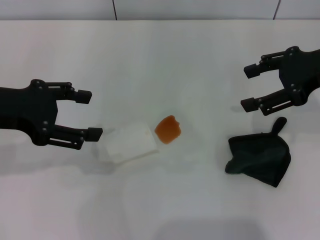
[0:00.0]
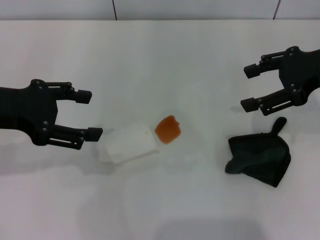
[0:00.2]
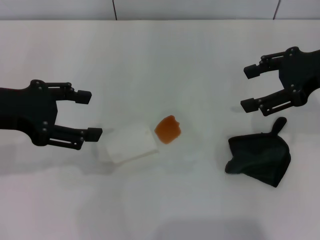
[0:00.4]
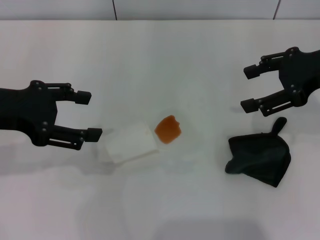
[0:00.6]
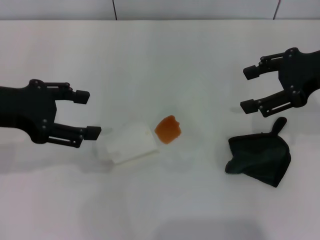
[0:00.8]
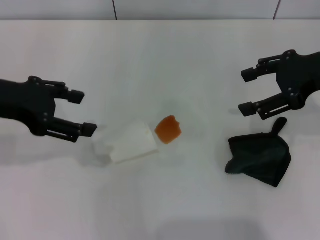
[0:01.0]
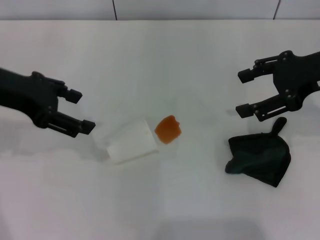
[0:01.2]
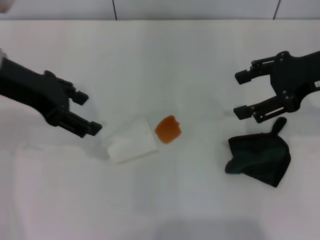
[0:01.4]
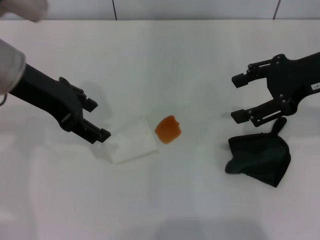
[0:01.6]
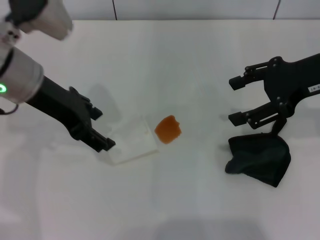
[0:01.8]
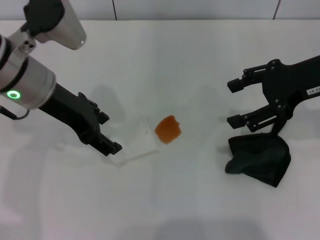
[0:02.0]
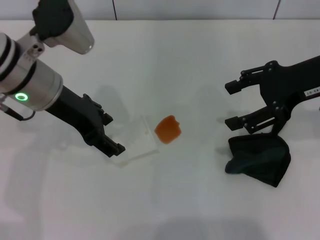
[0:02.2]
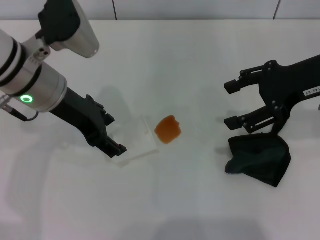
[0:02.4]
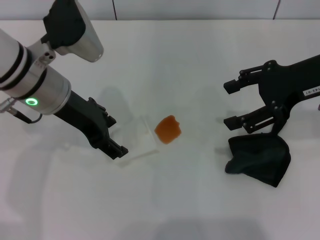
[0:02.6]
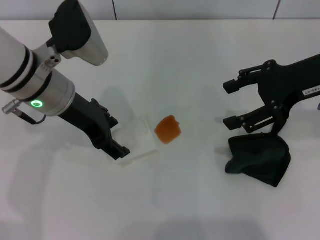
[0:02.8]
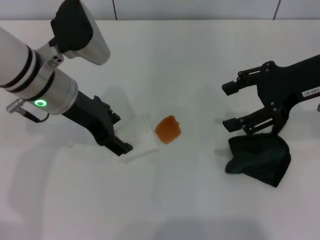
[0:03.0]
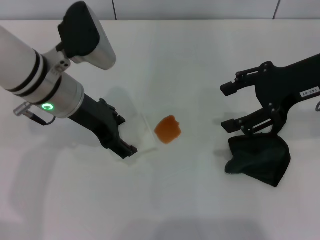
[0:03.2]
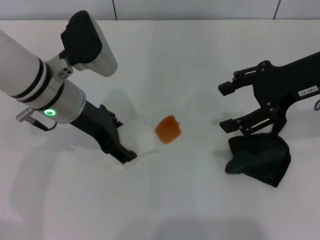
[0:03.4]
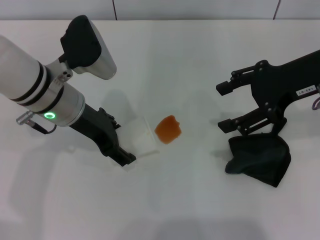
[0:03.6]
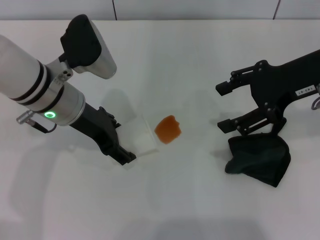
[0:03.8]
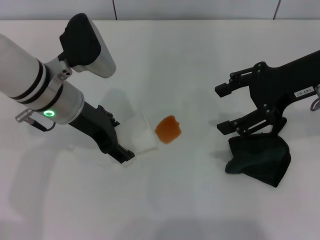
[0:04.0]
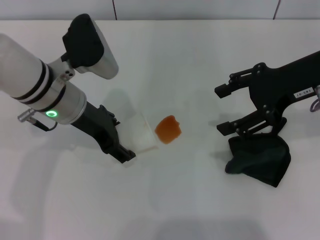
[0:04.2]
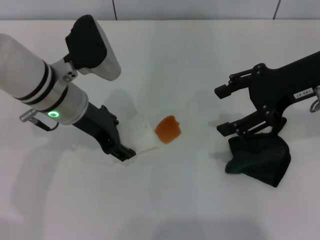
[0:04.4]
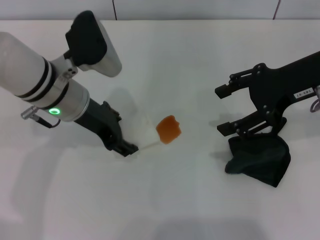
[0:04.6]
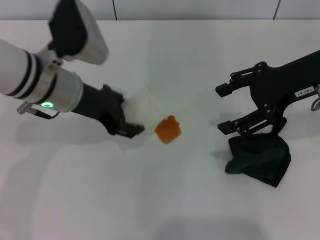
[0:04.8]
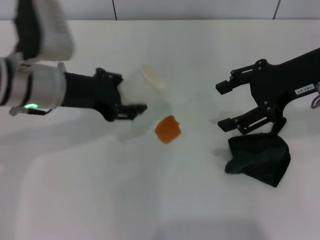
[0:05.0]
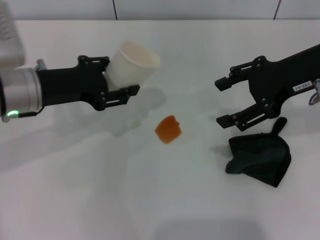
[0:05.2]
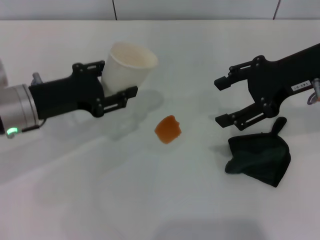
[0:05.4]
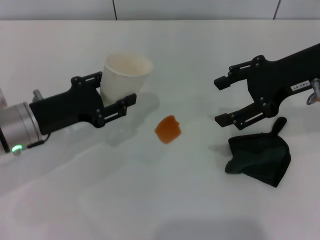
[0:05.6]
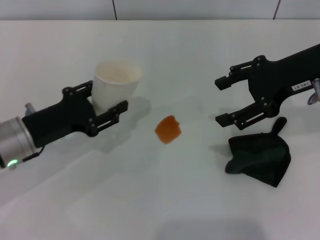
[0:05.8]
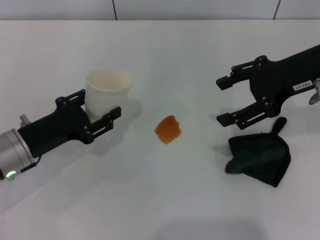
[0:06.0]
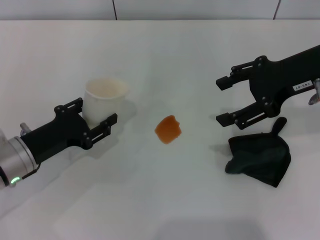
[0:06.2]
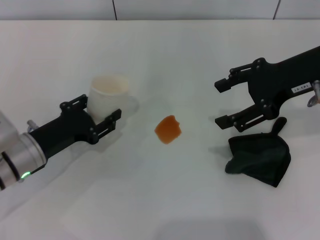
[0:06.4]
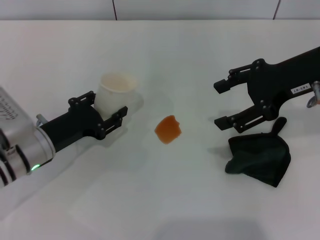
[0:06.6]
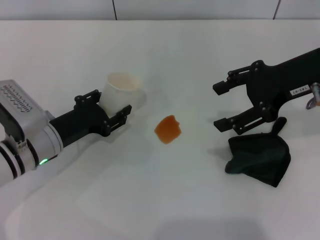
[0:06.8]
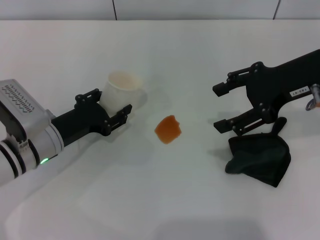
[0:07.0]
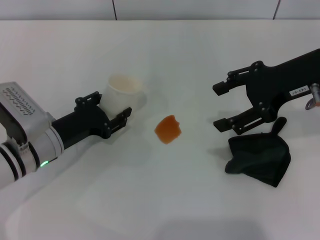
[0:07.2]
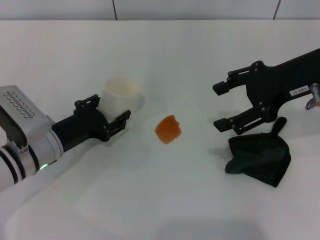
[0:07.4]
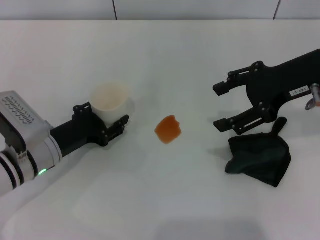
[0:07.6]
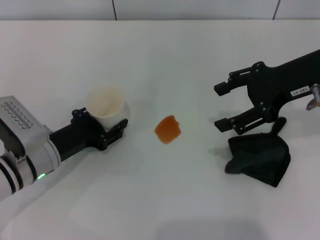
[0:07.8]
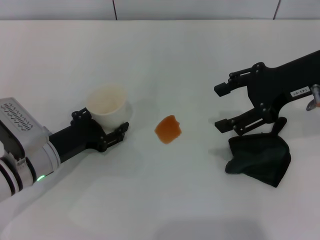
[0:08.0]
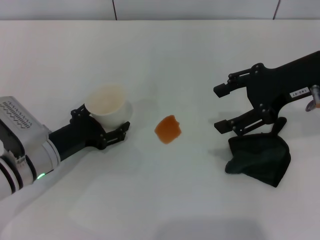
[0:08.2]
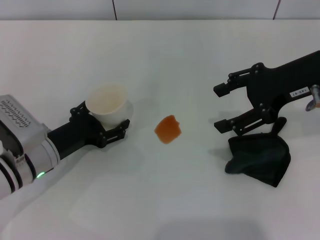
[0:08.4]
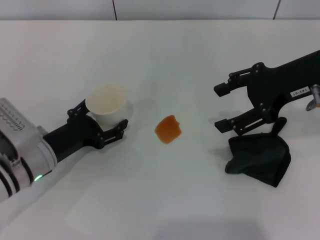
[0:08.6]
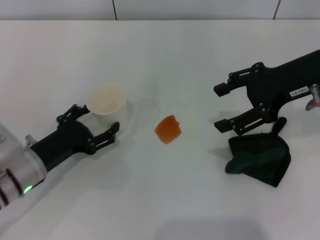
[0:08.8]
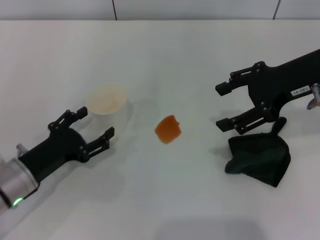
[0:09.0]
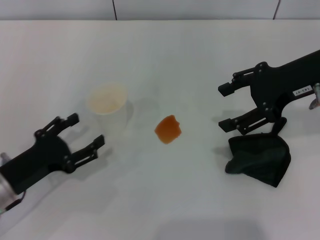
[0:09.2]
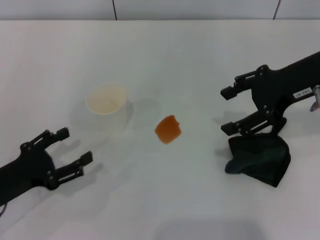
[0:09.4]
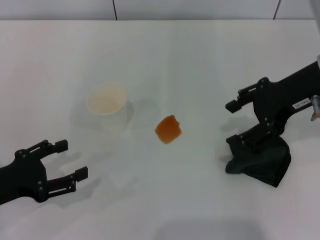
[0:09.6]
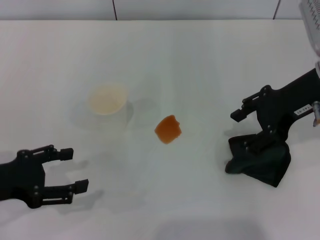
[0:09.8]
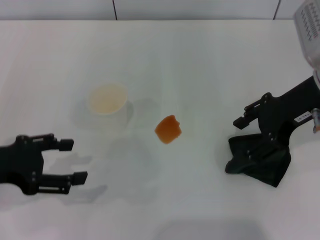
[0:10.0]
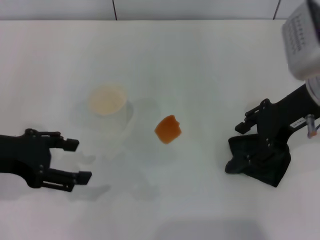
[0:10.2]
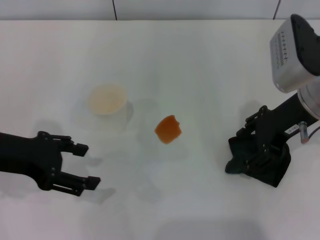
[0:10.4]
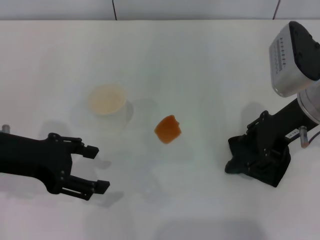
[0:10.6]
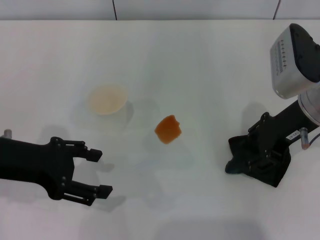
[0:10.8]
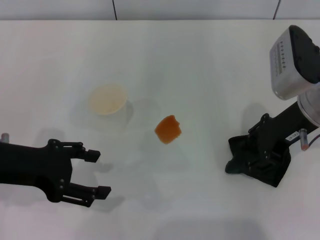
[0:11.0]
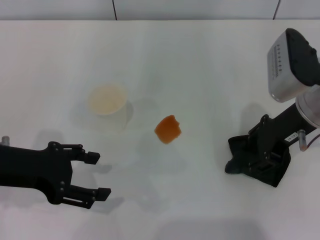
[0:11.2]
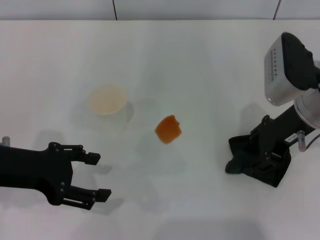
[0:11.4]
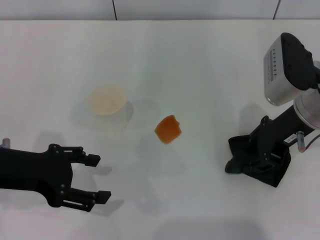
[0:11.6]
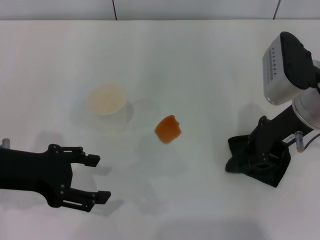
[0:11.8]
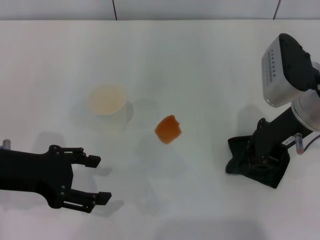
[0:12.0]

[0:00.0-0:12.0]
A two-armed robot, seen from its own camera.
Step, 0:00.0 to 0:04.2: Grasp the paper cup with the left gripper.
Step, 0:04.4 to 0:09.0: Stand the paper cup upright with the left gripper.
0:00.0 to 0:01.6: The left gripper heads to the right and forward, covering roughly 10 cm.
0:01.6 to 0:03.0: The left gripper moves downward, about 5 cm.
0:03.0 to 0:04.4: The grippers make only small movements.
0:04.4 to 0:06.0: The left gripper goes some 15 cm to the left, downward and backward, and closes up.
0:06.0 to 0:07.6: The left gripper moves roughly 5 cm.
0:07.6 to 0:09.0: The left gripper moves approximately 5 cm, and opens its fingers.
0:09.0 to 0:10.4: The left gripper heads upward, covering about 15 cm.
0:10.4 to 0:12.0: The right gripper closes up.

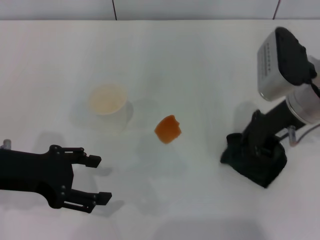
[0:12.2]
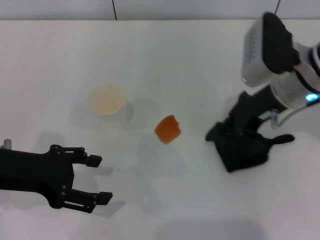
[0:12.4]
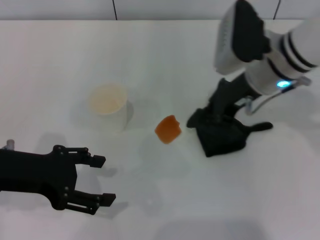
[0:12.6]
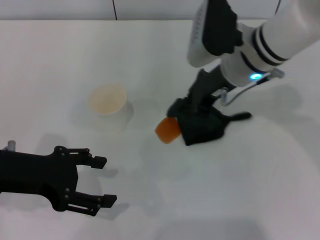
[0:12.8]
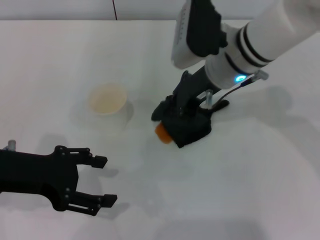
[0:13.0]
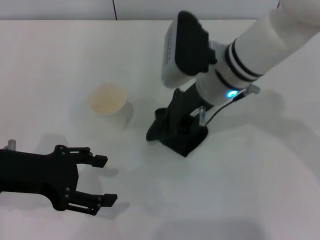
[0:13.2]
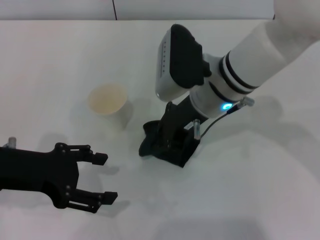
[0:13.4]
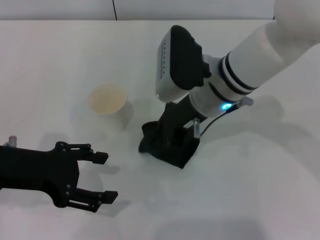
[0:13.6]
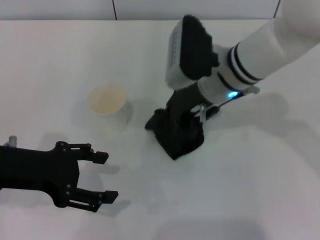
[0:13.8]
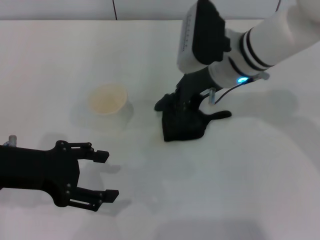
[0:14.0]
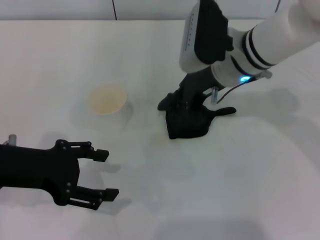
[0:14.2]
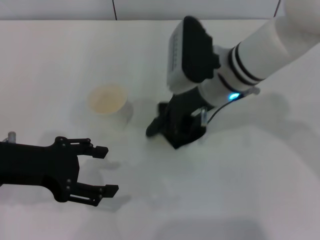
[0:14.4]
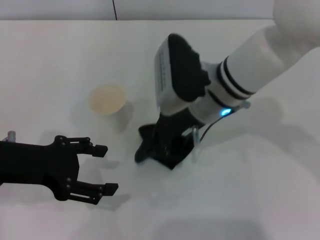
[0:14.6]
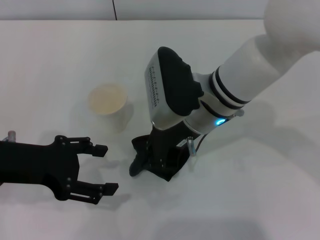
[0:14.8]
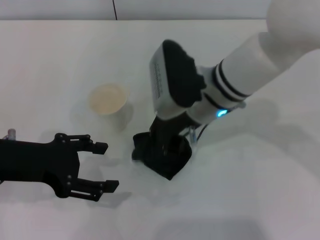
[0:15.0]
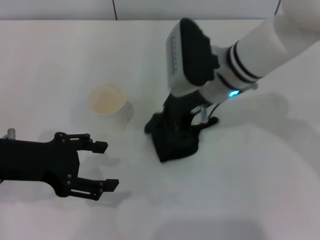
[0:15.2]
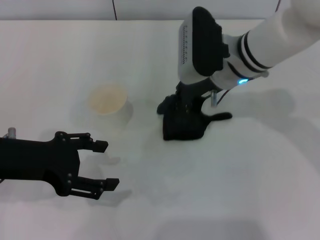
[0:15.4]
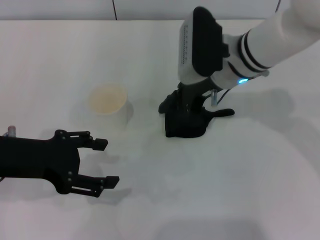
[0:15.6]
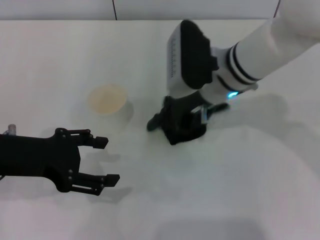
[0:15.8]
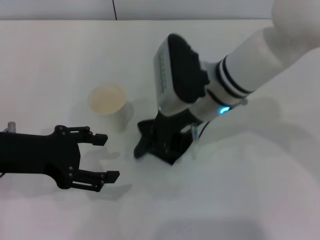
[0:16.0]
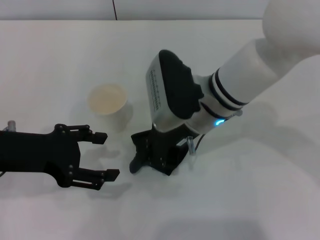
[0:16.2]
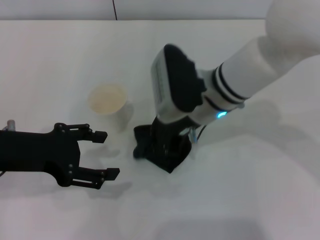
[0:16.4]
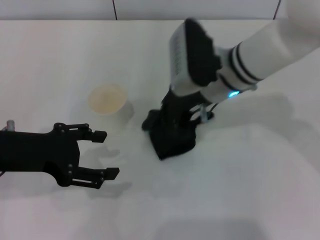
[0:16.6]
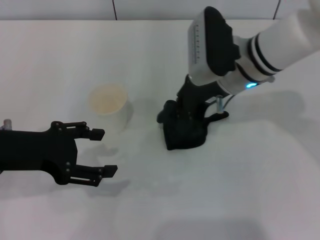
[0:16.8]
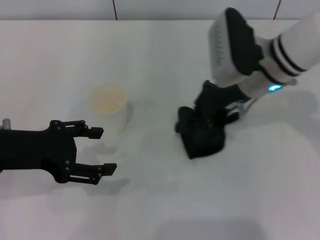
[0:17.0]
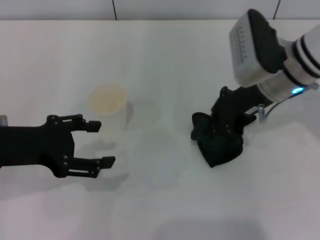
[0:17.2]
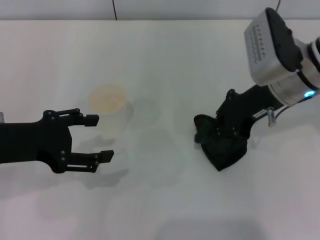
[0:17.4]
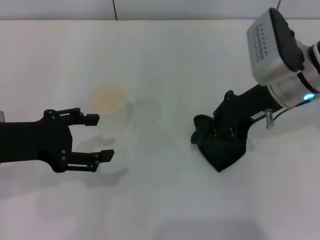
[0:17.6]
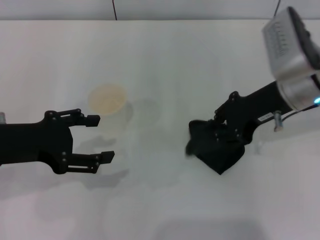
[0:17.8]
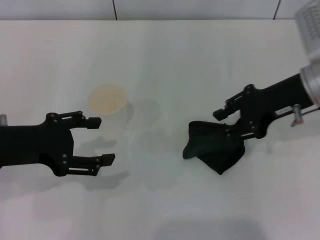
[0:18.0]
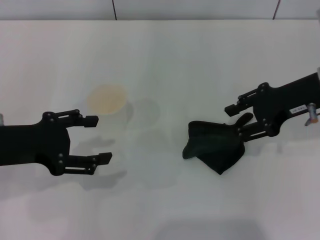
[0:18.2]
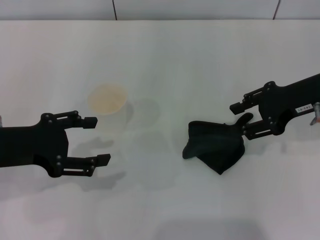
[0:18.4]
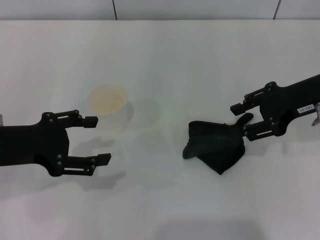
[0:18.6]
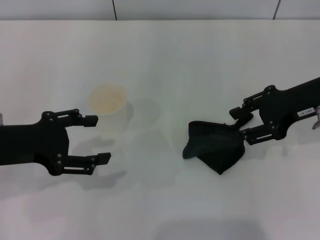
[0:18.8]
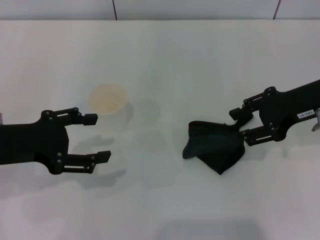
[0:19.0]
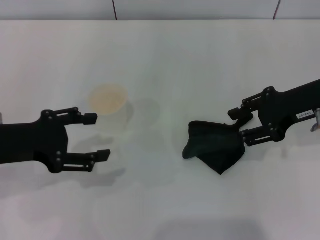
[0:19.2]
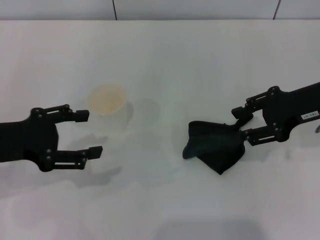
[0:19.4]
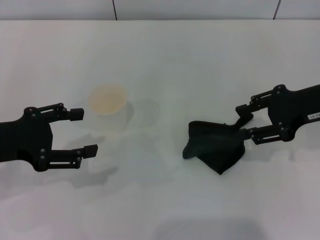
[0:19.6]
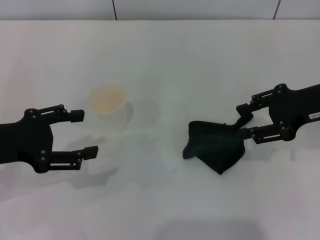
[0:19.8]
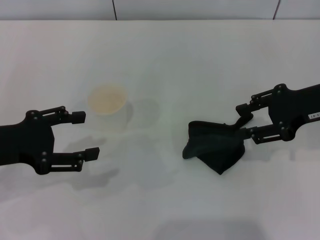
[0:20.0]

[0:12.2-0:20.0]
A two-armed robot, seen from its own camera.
Step, 0:12.2 to 0:16.8: Wipe the stains off the table with the right gripper.
Step, 0:17.0 to 0:18.8: Place the rag on the table with the right gripper.
0:12.2 to 0:13.8: The right gripper shifts roughly 10 cm to the left.
0:13.8 to 0:15.4: The grippers stay close to where they were, moving slightly.
0:16.8 to 0:18.4: The right gripper travels to the right by approximately 15 cm, and opens its fingers.
0:18.4 to 0:20.0: The grippers stay close to where they were, moving slightly.

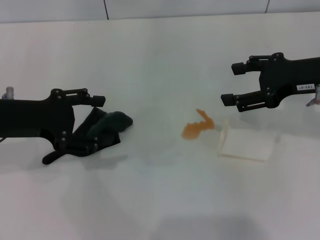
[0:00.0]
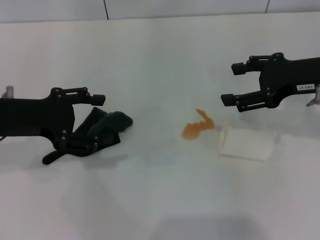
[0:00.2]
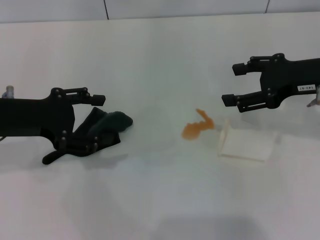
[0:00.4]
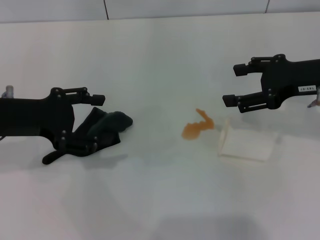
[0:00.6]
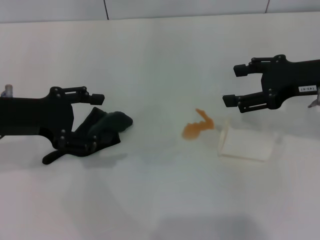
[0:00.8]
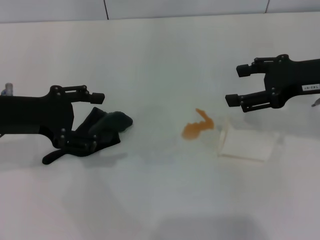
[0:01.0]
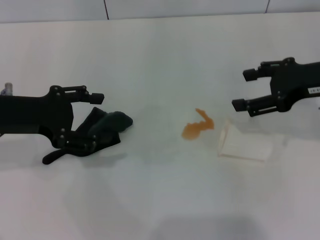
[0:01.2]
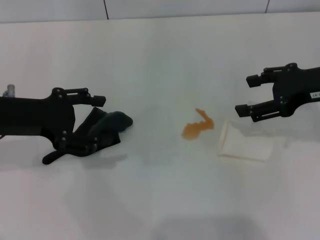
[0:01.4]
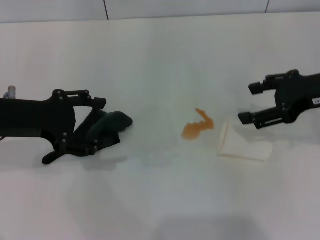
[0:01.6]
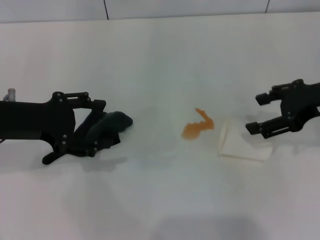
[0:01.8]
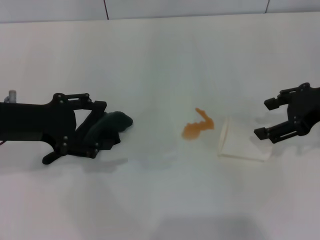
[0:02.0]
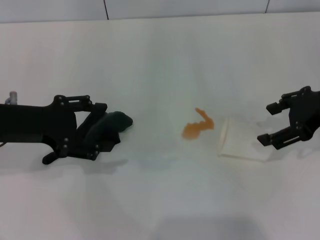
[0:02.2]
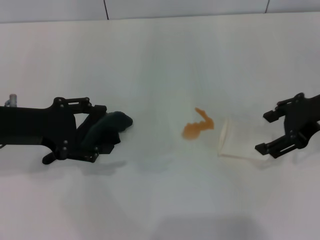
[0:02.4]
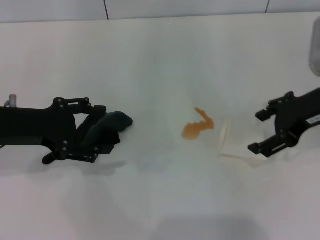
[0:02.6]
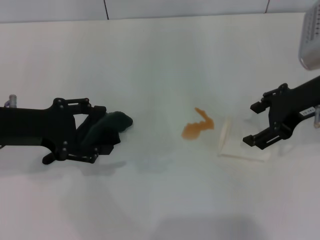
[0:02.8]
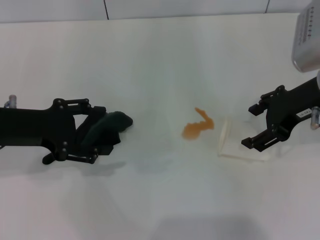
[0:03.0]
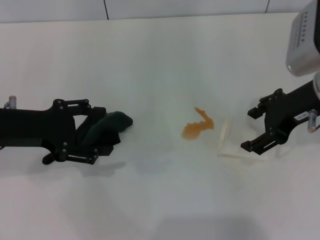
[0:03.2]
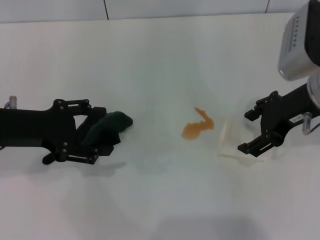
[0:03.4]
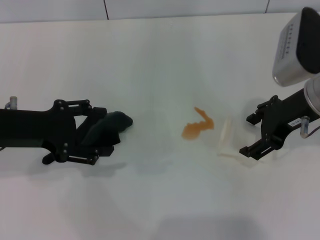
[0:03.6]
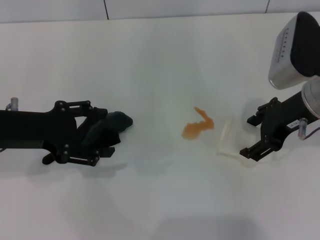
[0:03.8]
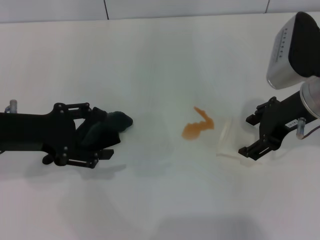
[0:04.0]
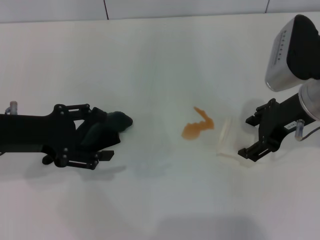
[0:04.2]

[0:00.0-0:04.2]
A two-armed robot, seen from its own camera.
0:00.0 to 0:01.4: The grippers stay close to where they were, moving slightly.
0:02.8 to 0:04.2: The grippers make only small movements.
